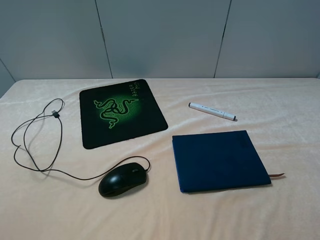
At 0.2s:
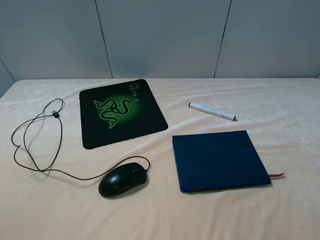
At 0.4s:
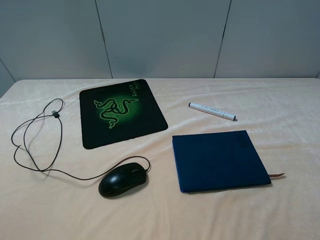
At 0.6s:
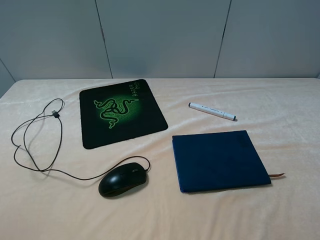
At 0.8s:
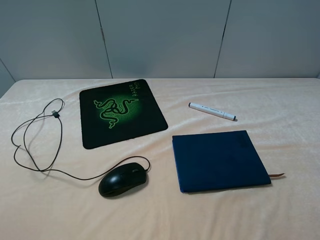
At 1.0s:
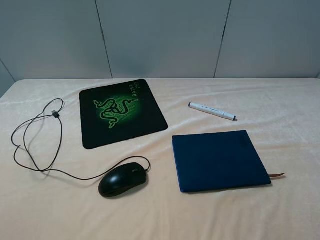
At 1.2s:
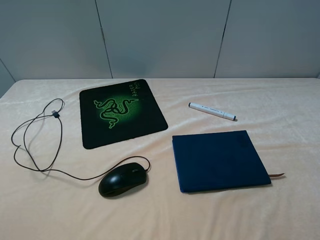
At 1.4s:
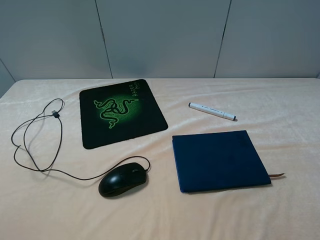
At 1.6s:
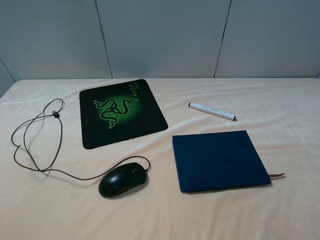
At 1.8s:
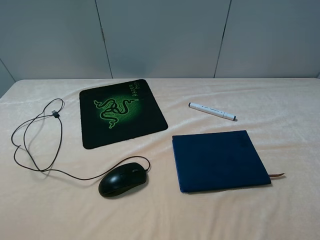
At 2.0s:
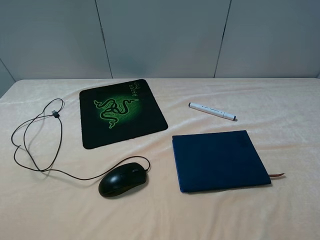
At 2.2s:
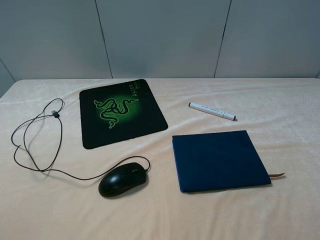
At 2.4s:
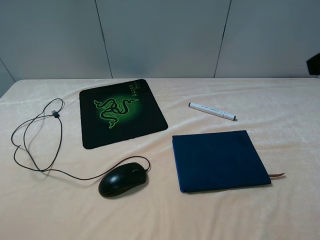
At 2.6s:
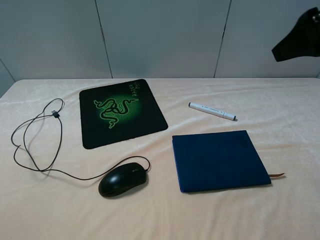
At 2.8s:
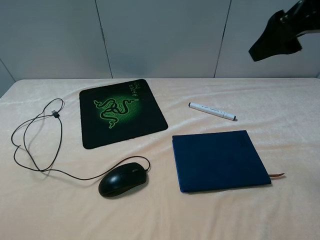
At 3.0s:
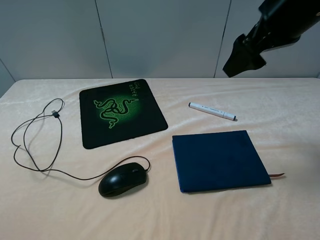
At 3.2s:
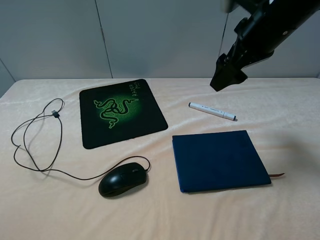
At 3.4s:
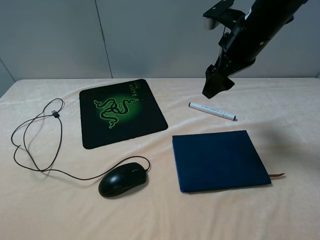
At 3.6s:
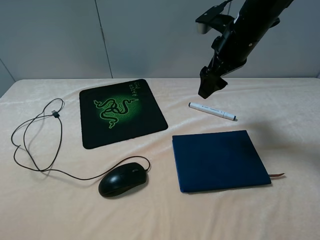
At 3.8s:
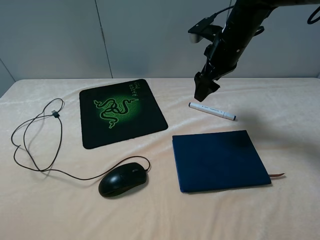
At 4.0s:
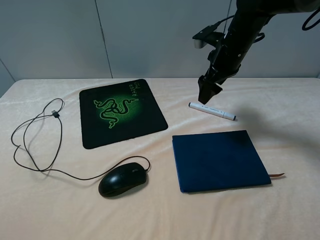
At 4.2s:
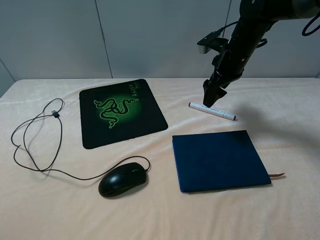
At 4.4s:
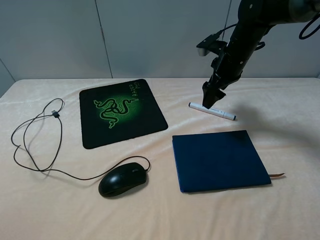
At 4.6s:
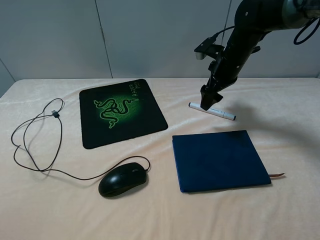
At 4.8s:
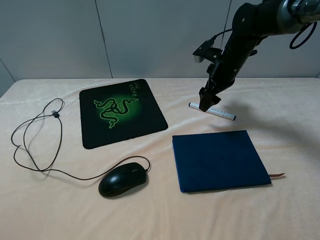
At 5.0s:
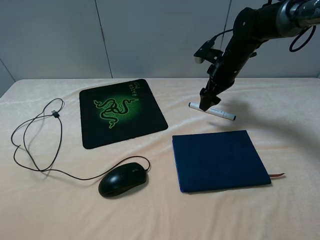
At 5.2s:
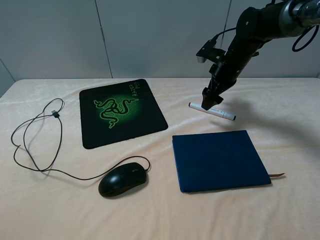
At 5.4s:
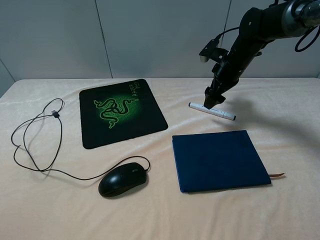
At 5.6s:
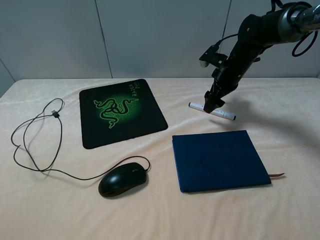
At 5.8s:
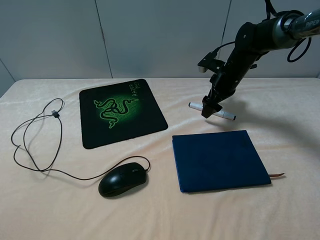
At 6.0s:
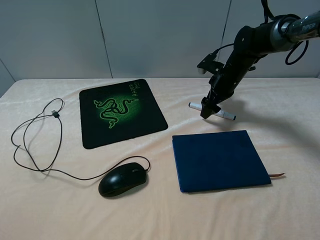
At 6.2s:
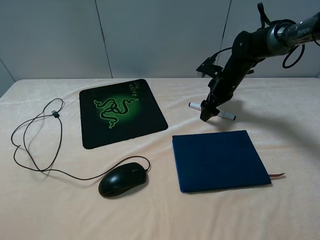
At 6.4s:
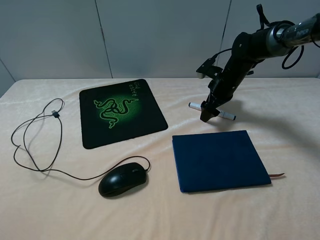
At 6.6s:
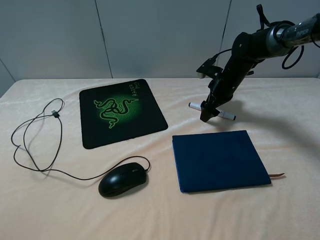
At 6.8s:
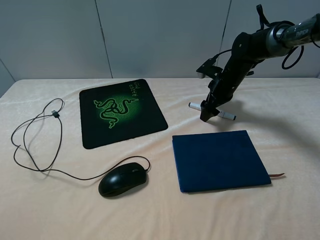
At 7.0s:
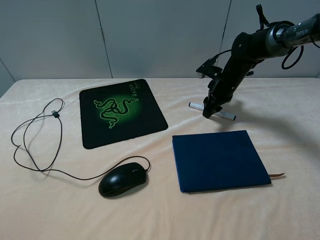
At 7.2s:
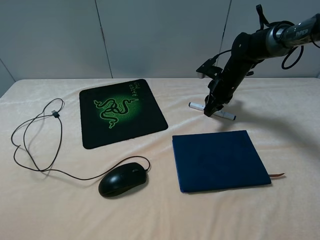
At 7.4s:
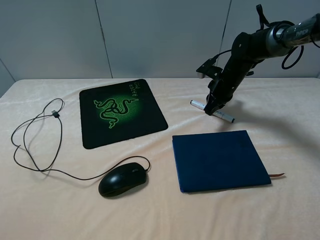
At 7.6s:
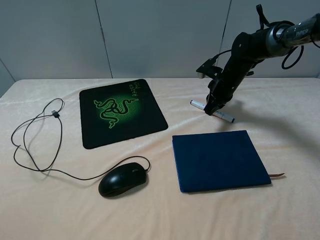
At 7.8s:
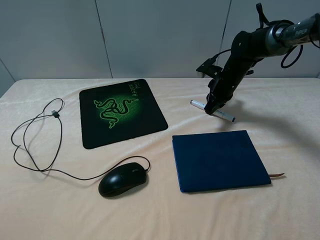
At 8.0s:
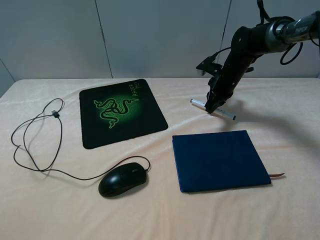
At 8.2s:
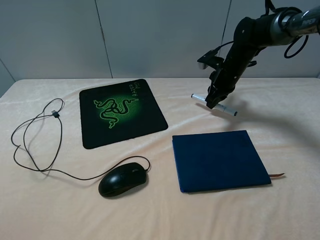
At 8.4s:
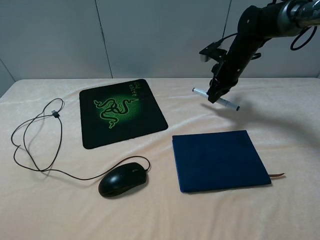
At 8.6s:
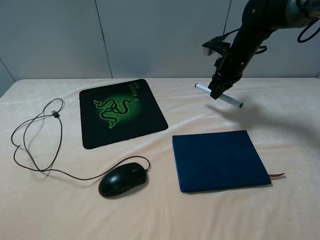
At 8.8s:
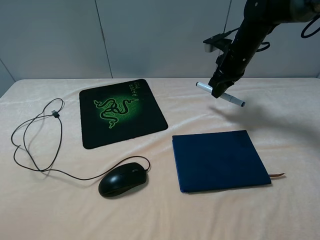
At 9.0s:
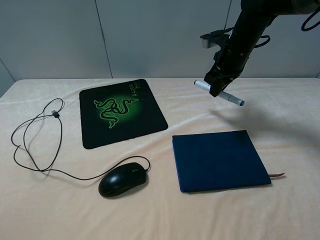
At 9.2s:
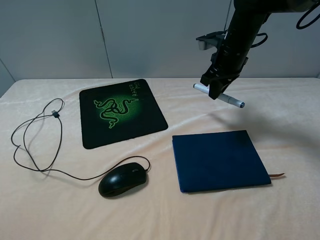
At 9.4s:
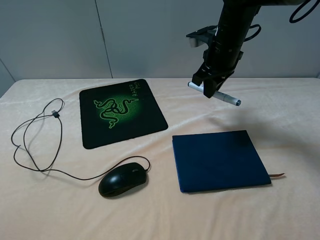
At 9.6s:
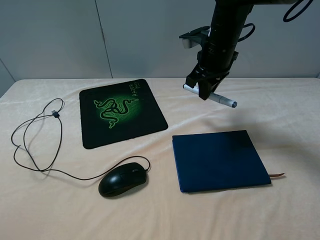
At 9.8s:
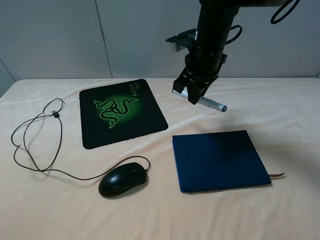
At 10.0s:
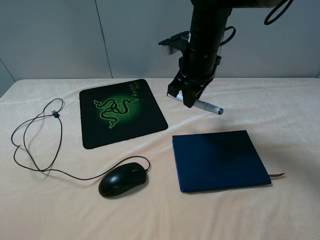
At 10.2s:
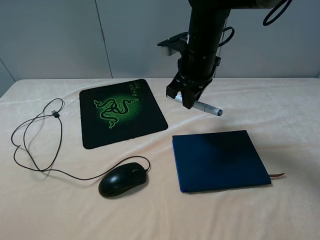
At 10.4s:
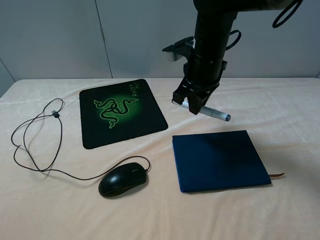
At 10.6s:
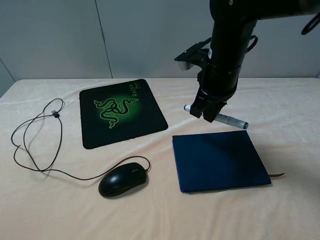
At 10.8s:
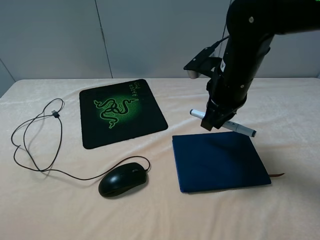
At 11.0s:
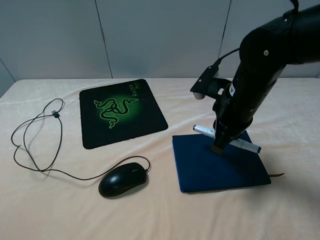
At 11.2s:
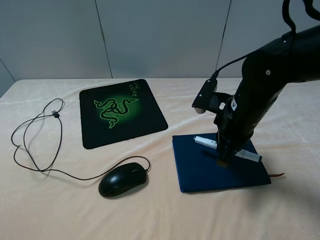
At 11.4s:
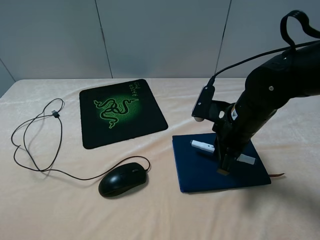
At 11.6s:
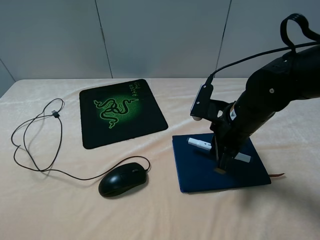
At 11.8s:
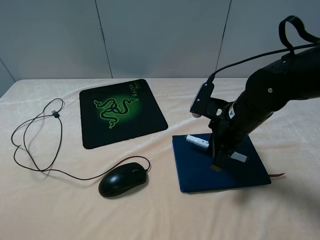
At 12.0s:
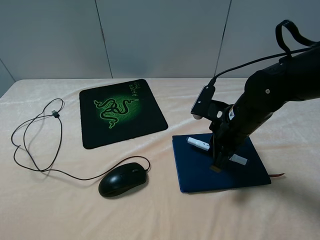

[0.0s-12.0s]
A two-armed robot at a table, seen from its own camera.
Step, 0.0s to 7.8s: Grasp the marker with the right gripper.
1.6s to 3.0s: The right gripper is displaced forward and to the left by approximately 30 cm.
3.0s to 4.4s: The right gripper heads downward and forward, covering approximately 20 cm.
4.4s to 6.0s: The right gripper moves downward, some 5 cm.
6.0s to 7.6s: The right gripper closes.
7.6s to 9.0s: The right gripper goes approximately 10 cm upward.
9.0s to 10.4s: The right gripper moves backward and to the left, roughly 10 cm.
10.4s to 12.0s: The right gripper heads downward, backward and to the right, covering some 15 cm.

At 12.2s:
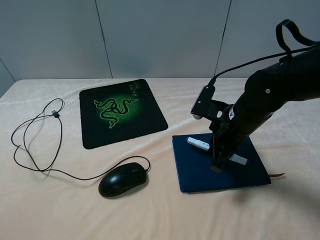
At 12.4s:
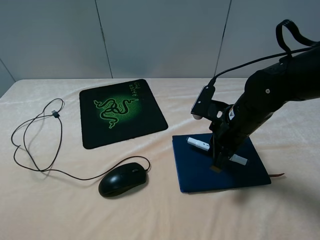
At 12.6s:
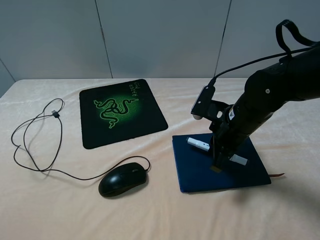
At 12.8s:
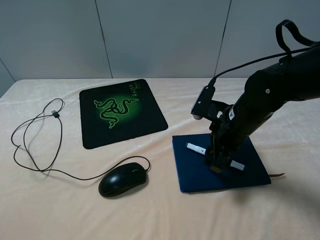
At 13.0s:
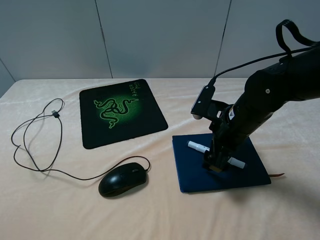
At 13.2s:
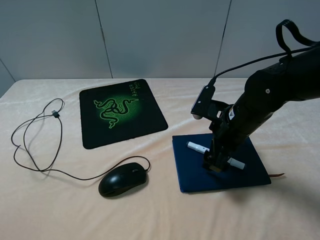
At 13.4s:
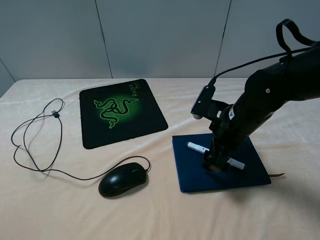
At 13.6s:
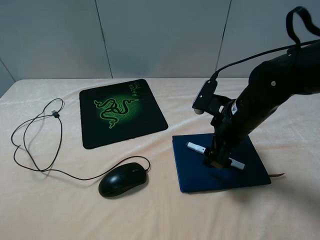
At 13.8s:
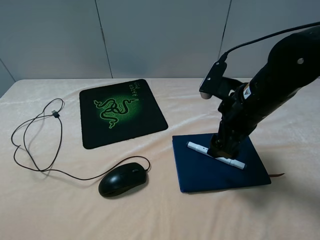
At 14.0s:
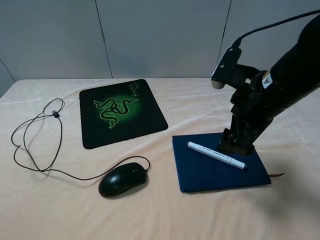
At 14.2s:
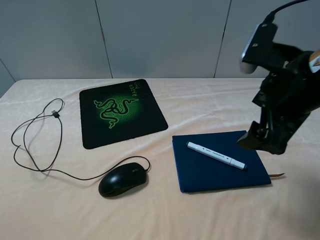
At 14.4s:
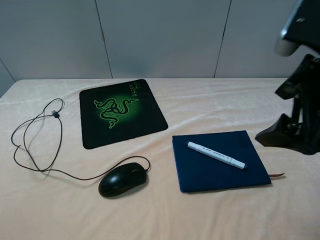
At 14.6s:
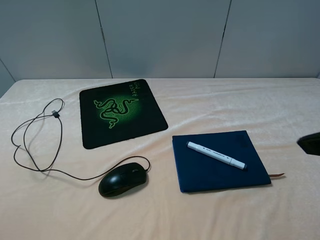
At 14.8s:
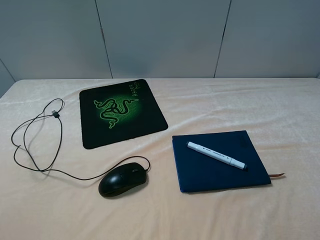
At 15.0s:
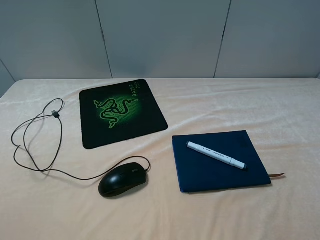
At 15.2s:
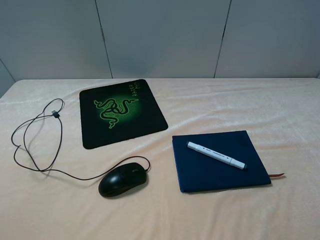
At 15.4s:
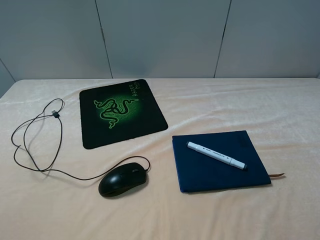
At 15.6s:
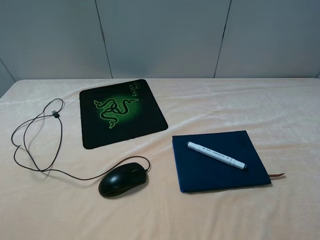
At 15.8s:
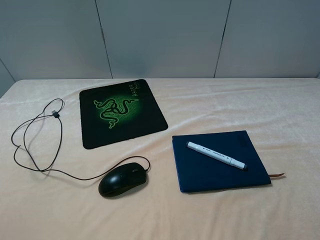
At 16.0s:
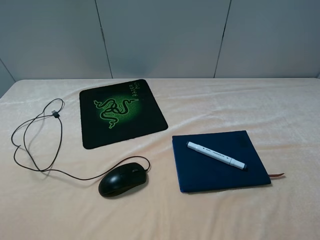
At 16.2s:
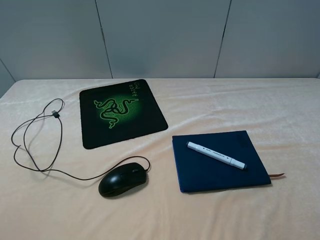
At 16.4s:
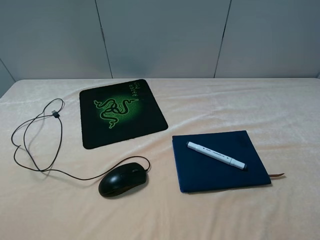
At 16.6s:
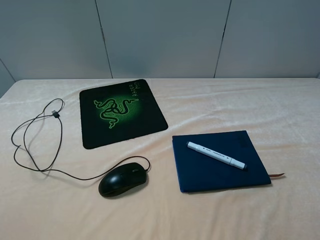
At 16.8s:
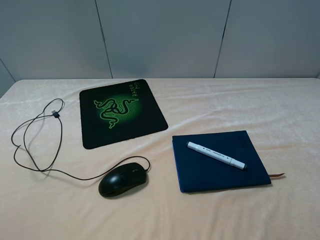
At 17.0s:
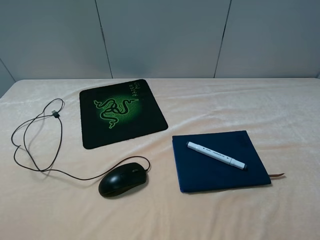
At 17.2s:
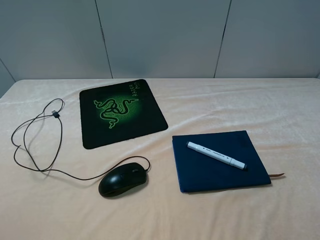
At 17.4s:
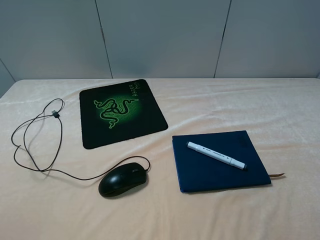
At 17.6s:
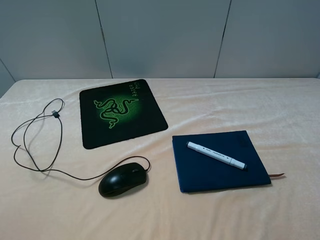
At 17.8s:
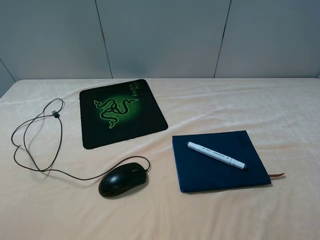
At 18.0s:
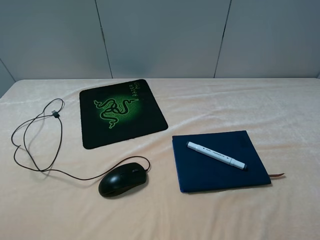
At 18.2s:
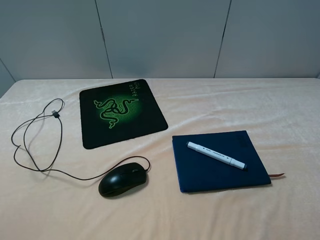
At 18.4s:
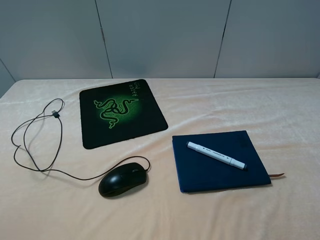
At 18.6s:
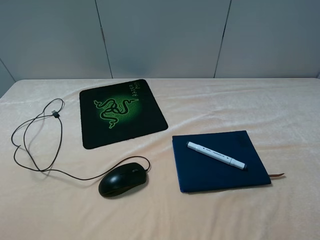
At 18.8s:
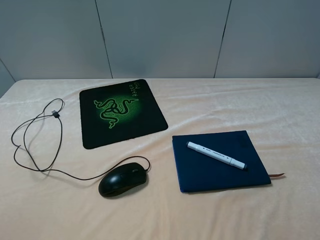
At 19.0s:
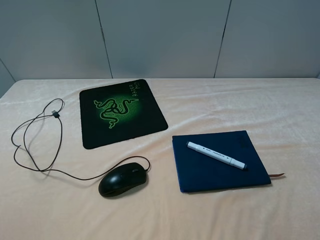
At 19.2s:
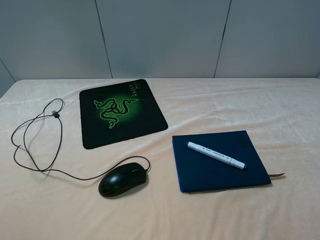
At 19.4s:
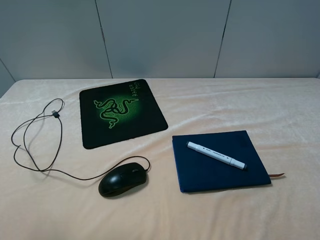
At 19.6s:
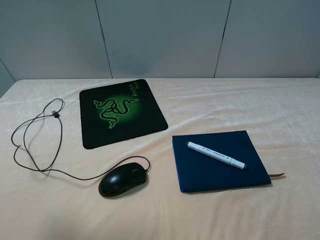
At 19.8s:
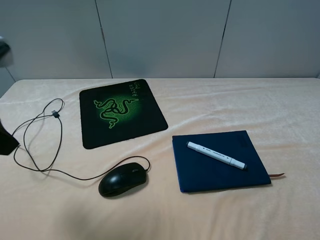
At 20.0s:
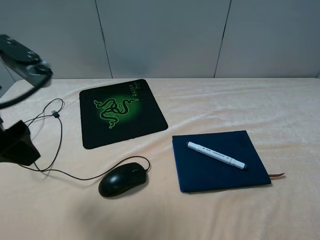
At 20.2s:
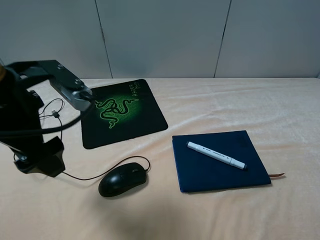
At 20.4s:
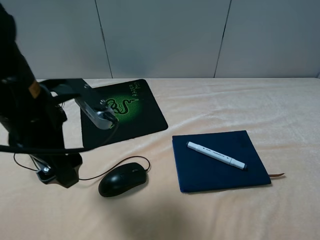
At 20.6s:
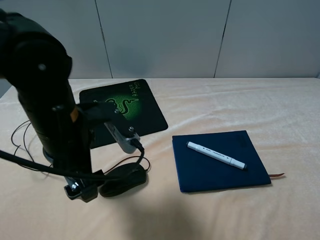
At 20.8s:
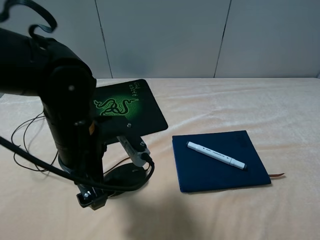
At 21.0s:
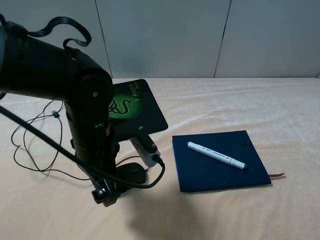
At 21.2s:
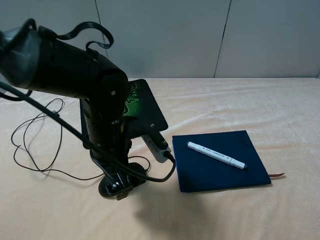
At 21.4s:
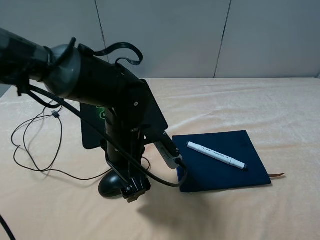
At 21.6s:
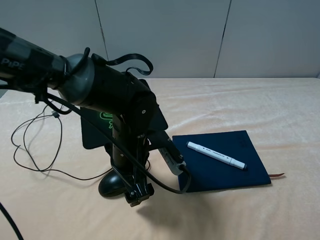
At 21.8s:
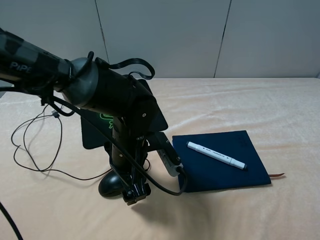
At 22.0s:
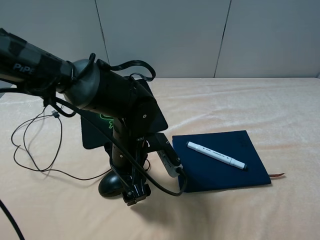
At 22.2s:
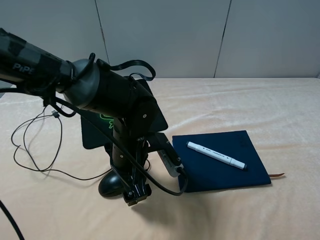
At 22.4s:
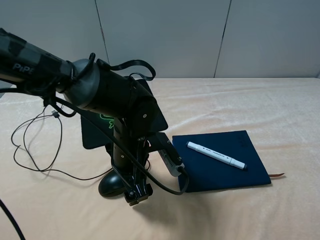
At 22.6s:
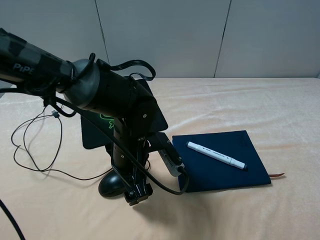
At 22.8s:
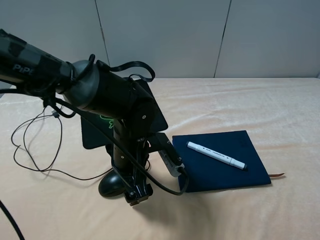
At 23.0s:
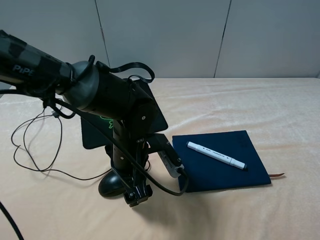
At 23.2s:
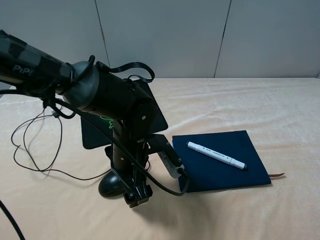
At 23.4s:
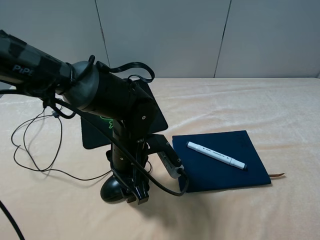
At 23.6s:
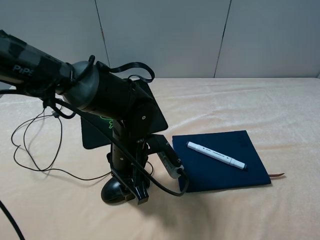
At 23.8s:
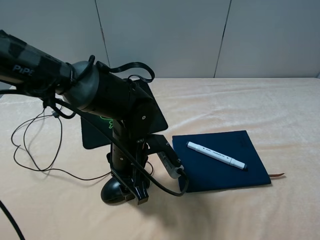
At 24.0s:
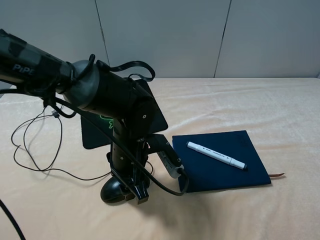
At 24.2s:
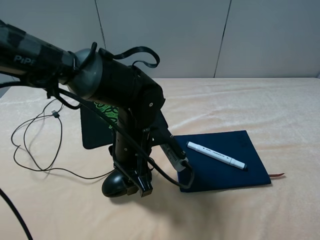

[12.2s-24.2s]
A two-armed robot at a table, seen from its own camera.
Step, 13.4s to 23.8s: Grasp the mouse with the left gripper.
12.2s to 13.8s: The right gripper shifts about 5 cm upward, and opens up.
13.8s to 15.2s: The right gripper moves backward, upward and to the right, approximately 30 cm.
16.6s to 18.2s: Neither gripper changes place.
18.2s to 19.8s: The left gripper moves forward and to the right, some 15 cm.
19.8s to 21.2s: The left gripper moves downward and to the right, about 25 cm.
21.2s to 22.6s: The left gripper moves some 5 cm.
22.6s to 24.2s: The left gripper closes its fingers.
